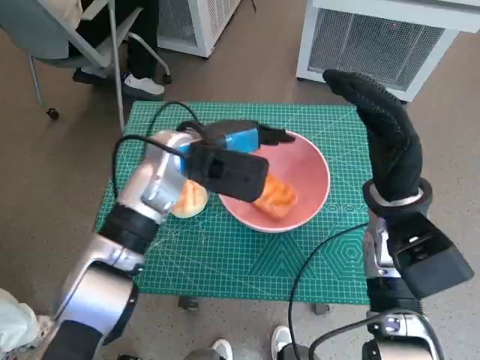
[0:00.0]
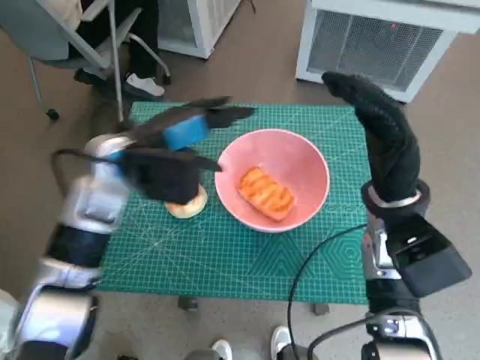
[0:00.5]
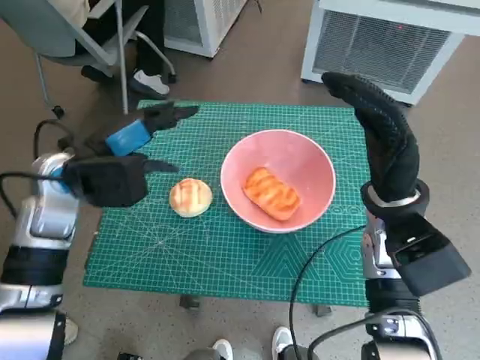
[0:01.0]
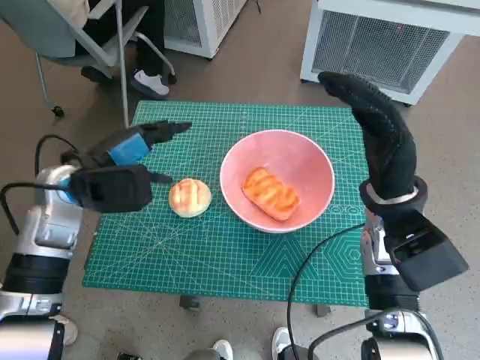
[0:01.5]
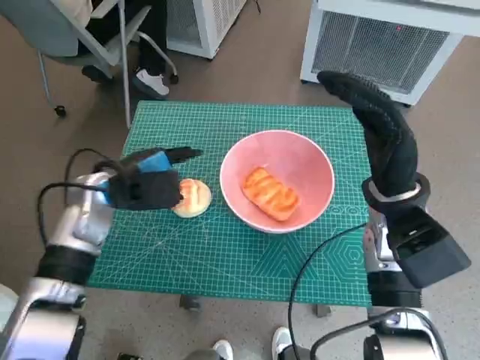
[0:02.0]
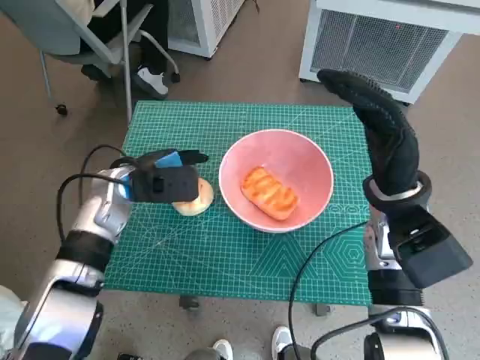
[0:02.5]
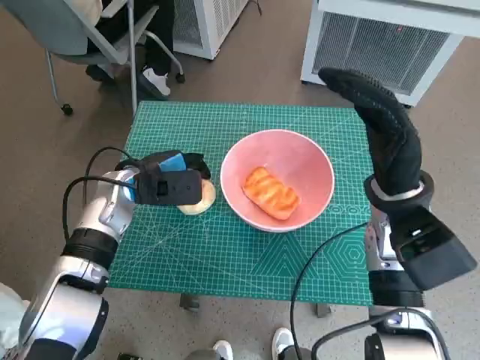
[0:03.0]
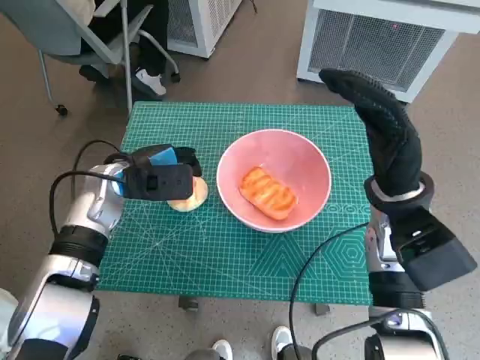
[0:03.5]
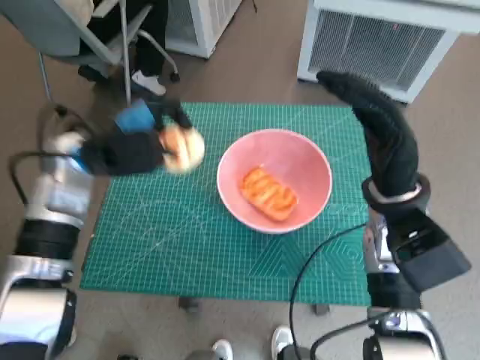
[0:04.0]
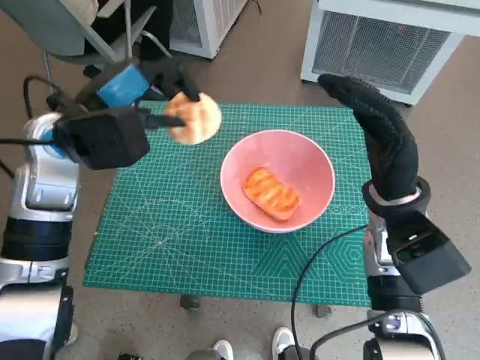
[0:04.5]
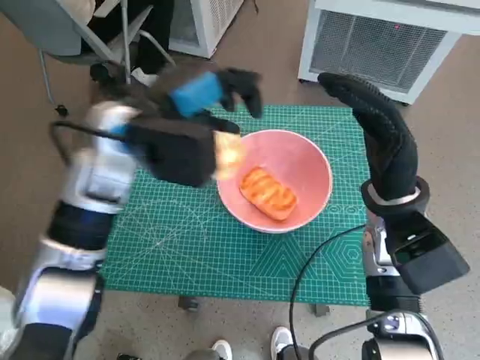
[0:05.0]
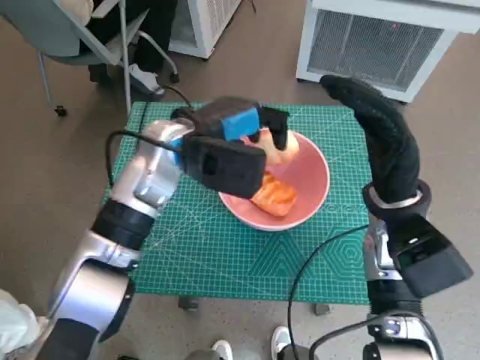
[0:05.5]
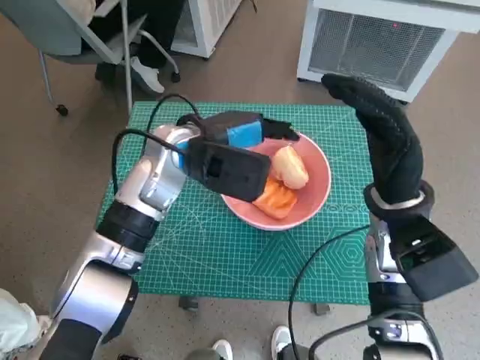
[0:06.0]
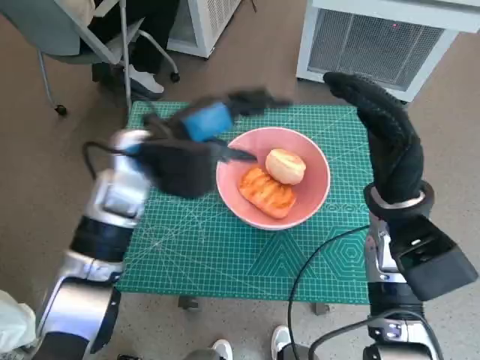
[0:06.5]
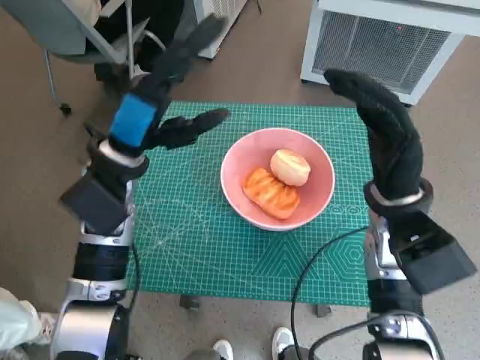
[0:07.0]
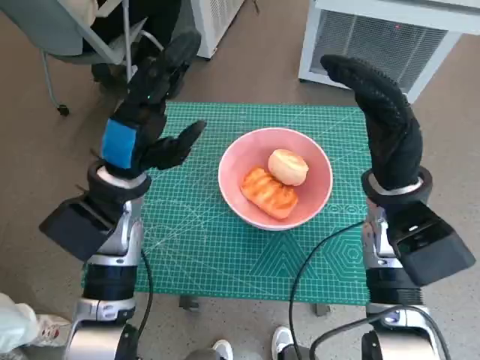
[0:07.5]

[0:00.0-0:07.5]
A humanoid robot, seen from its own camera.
Task of the whole recording: Push the bowl to the center of the table and put the bread into the bowl.
Step, 0:00.5 to 0:03.0: Grasp the round bread with left hand.
Step, 0:03.5 to 0:06.0: Place the round bread in pink bowl with left hand.
0:00.0 to 0:02.0: The left hand shifts approximately 15 cm to the left and downward.
0:02.0 to 0:04.0: The left hand shifts some 5 cm upward.
0:04.0 to 0:05.5: The left hand travels to the right by approximately 10 cm.
0:05.5 to 0:07.5: The left hand goes about 10 cm to the left and backward.
